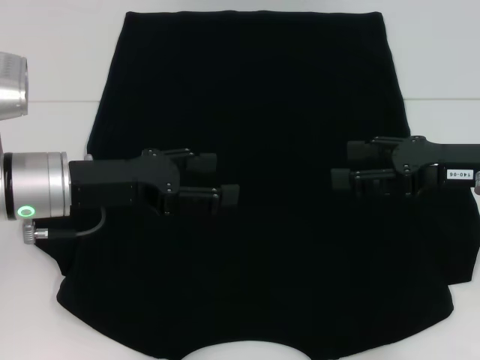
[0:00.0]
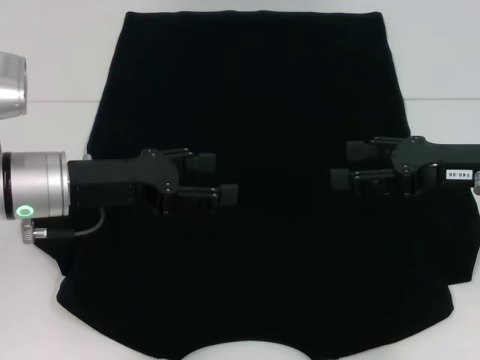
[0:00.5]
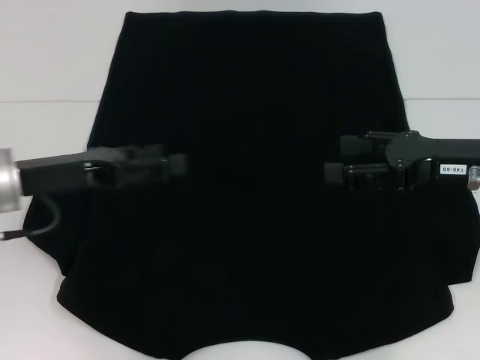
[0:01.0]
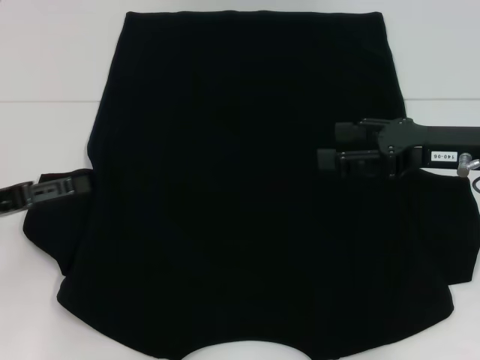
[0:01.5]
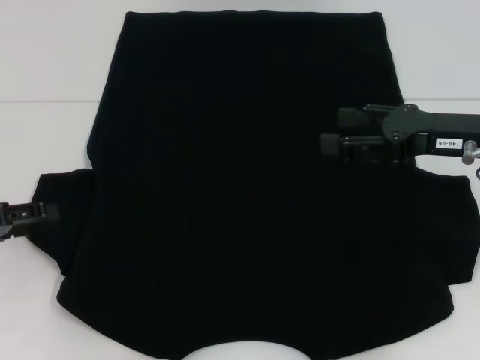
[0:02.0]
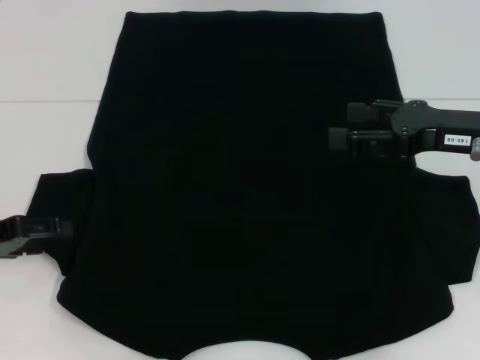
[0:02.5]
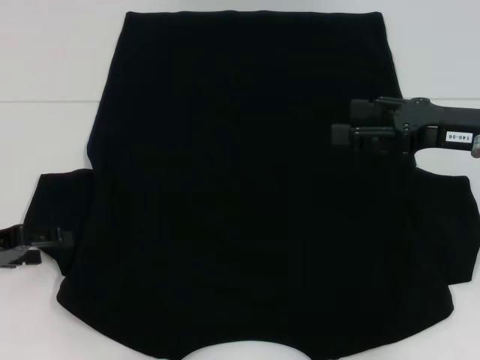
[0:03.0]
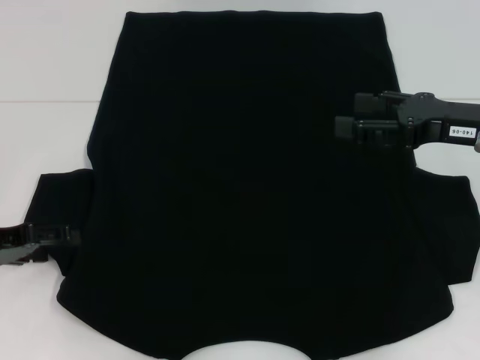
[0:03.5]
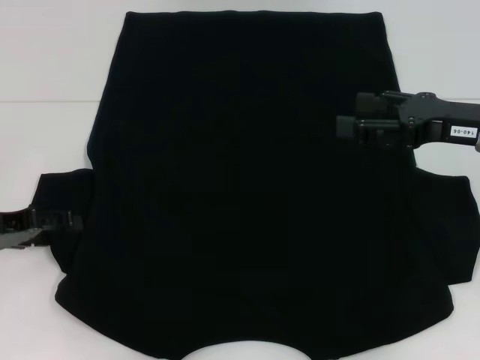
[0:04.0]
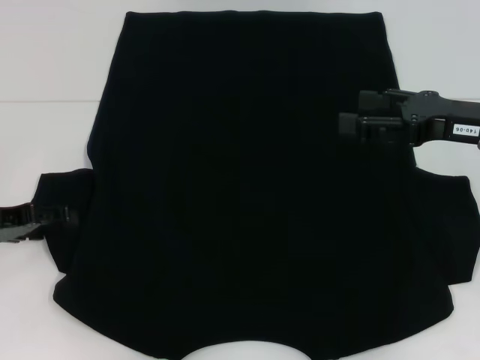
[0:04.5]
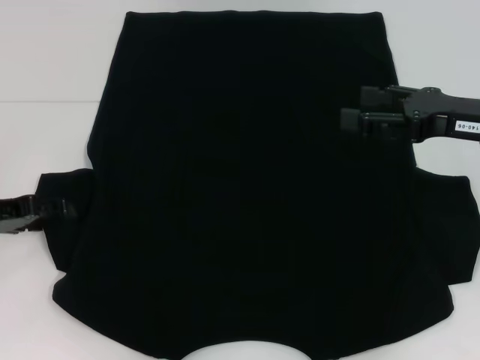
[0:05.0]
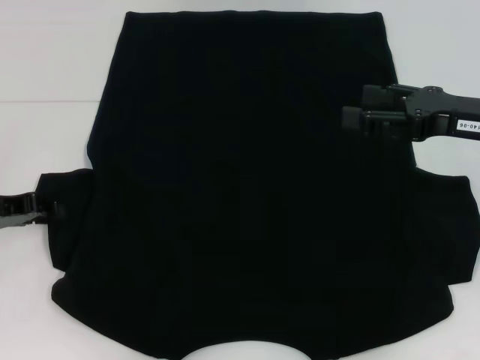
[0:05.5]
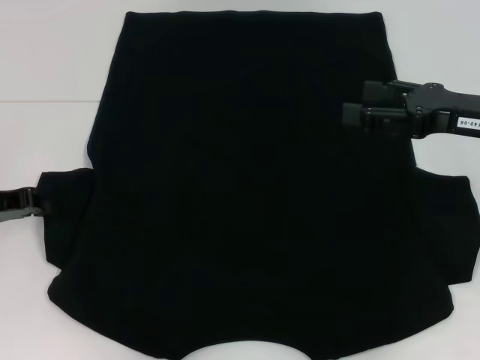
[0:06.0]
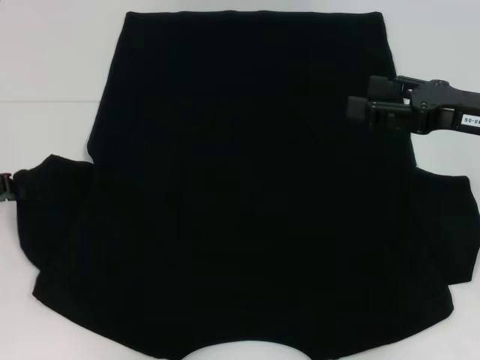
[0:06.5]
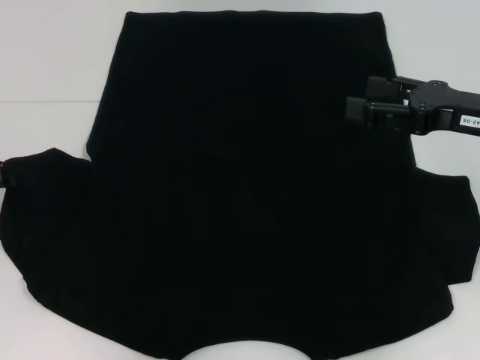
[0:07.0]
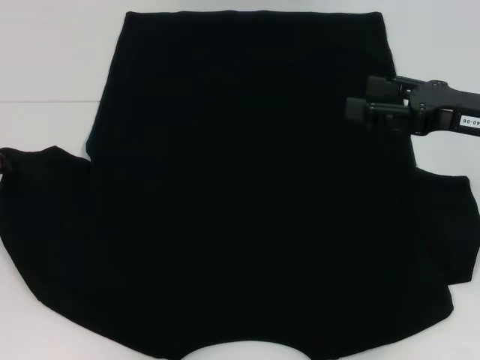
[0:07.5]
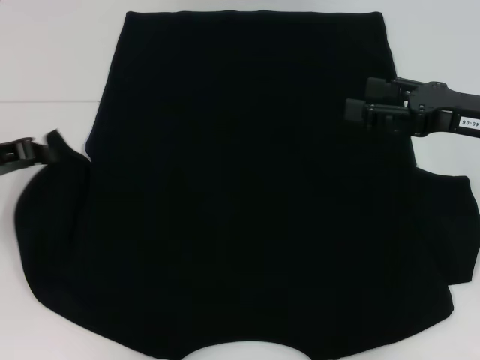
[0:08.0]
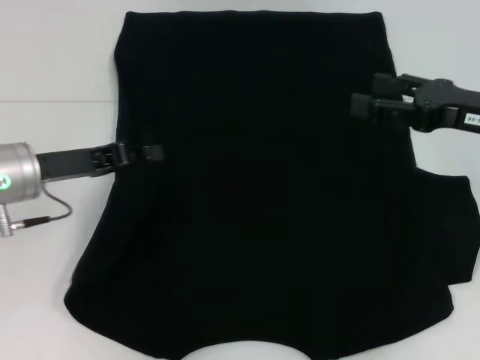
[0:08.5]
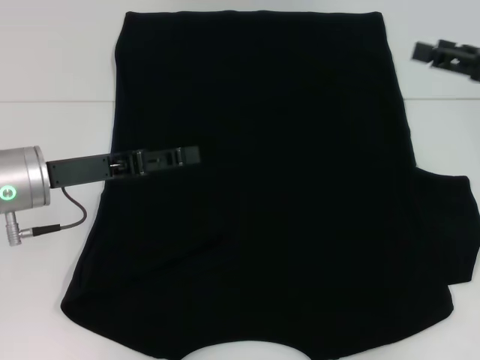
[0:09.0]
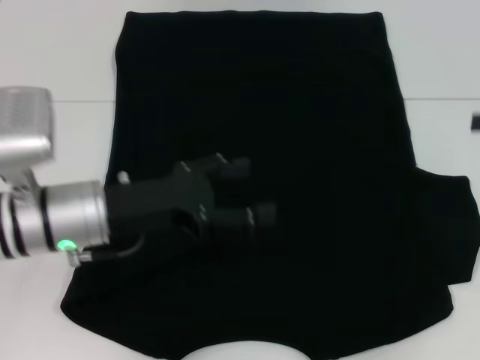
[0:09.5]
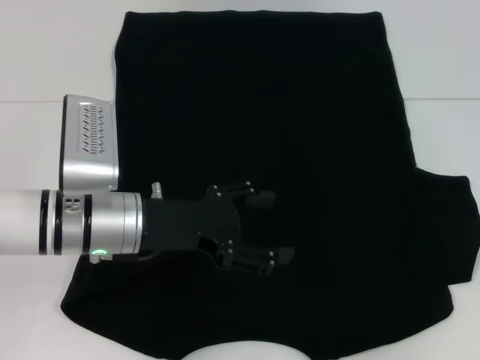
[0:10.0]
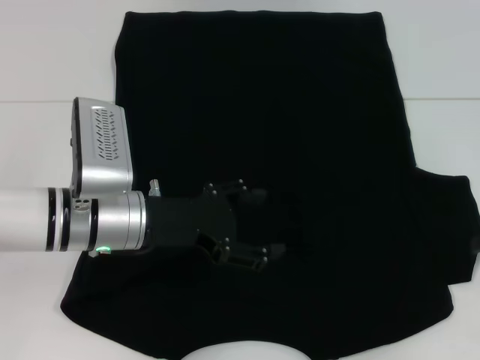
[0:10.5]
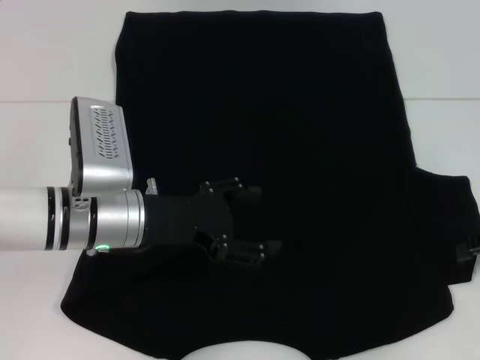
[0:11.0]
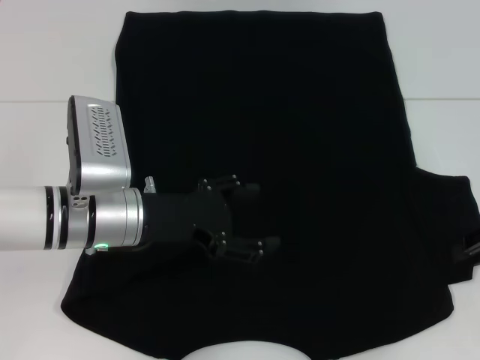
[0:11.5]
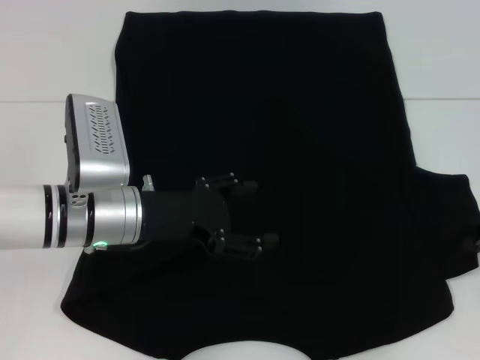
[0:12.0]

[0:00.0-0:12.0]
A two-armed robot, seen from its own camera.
Step, 0:00.0 to 0:09.0: Fold the bottom left sleeve with your left hand.
0:00.0 to 0:02.0: The left gripper shifts roughly 15 cm to the left.
0:02.0 to 0:04.0: The grippers make only small movements.
0:04.0 to 0:06.0: The left gripper closes.
0:06.0 to 0:08.0: There are only small adjustments of the grippers.
0:08.0 to 0:10.0: The two grippers go approximately 15 cm to the right. The left gripper opens.

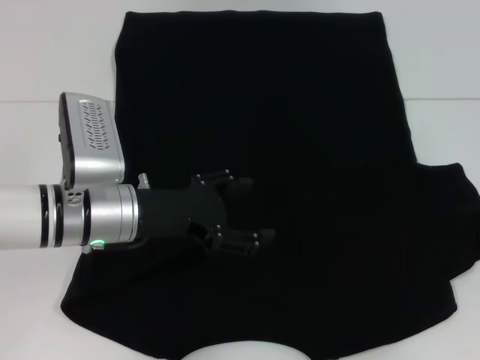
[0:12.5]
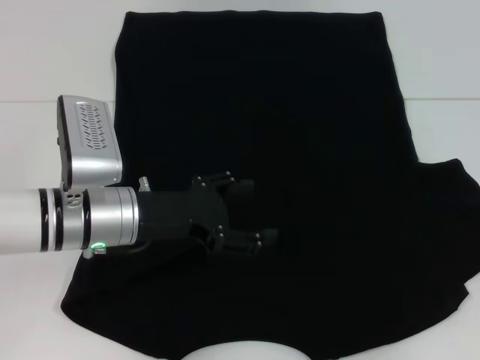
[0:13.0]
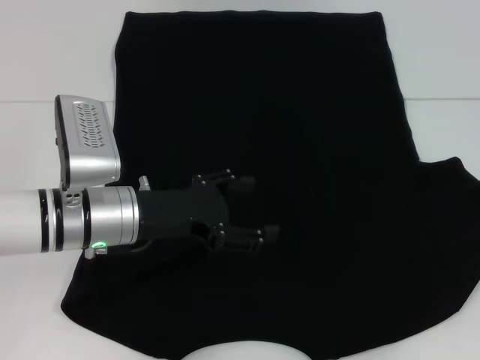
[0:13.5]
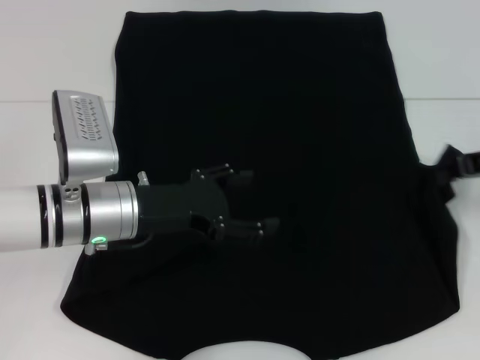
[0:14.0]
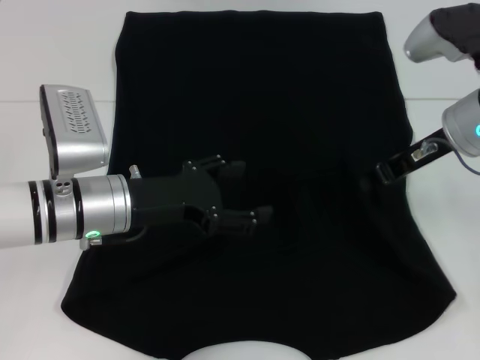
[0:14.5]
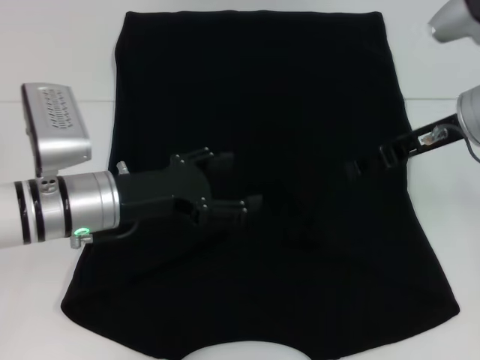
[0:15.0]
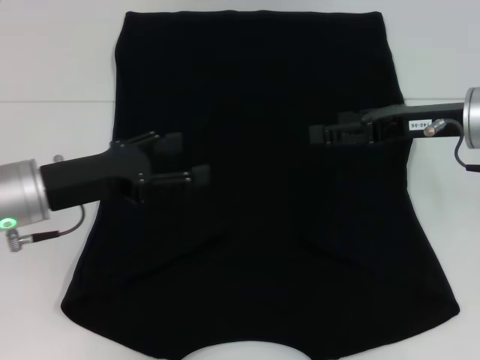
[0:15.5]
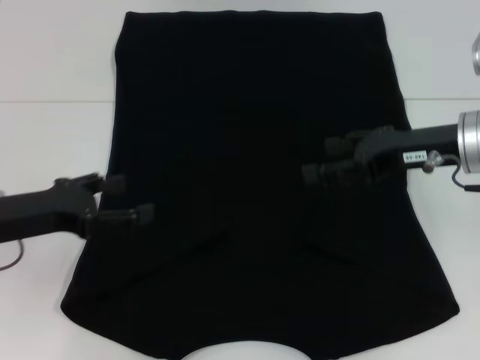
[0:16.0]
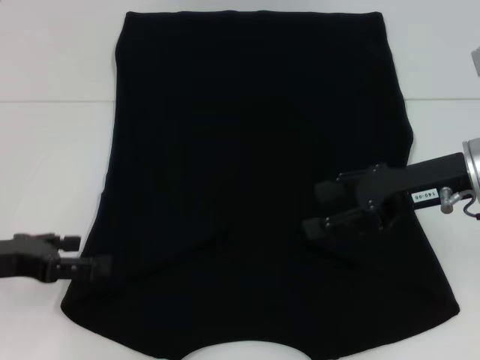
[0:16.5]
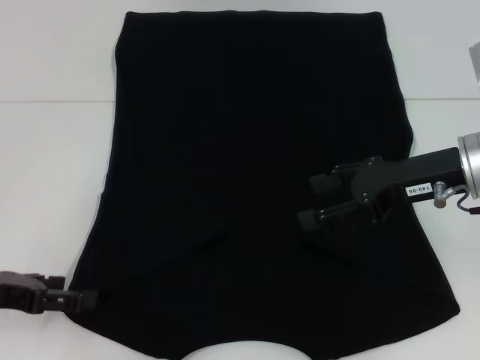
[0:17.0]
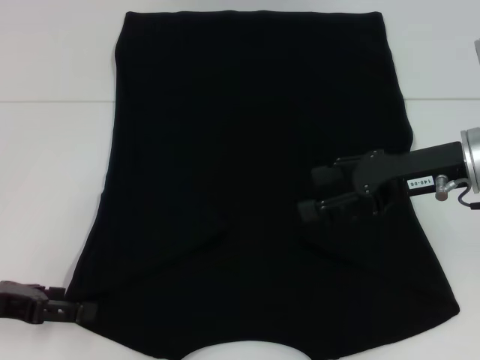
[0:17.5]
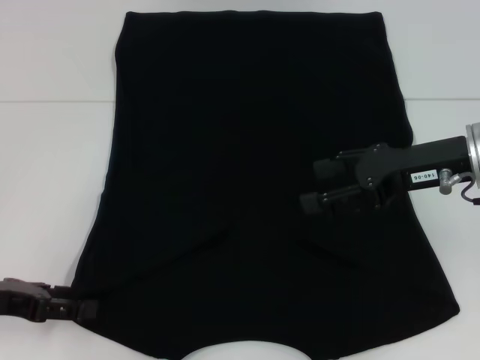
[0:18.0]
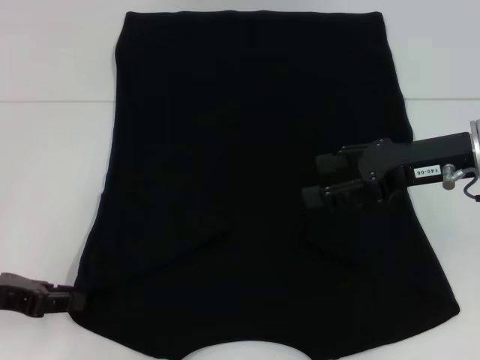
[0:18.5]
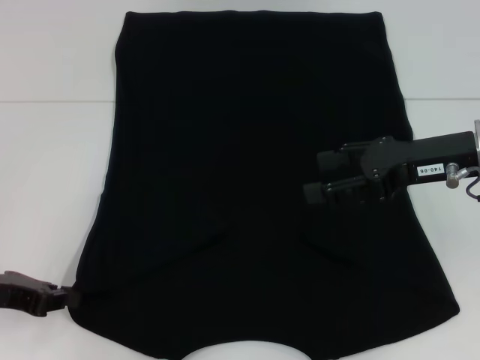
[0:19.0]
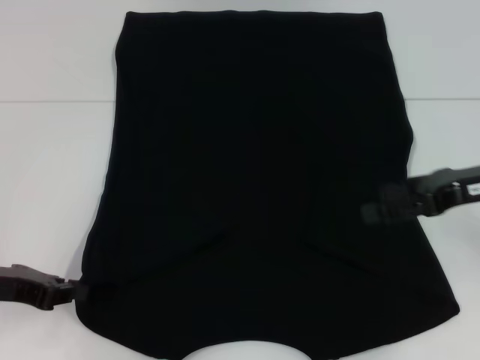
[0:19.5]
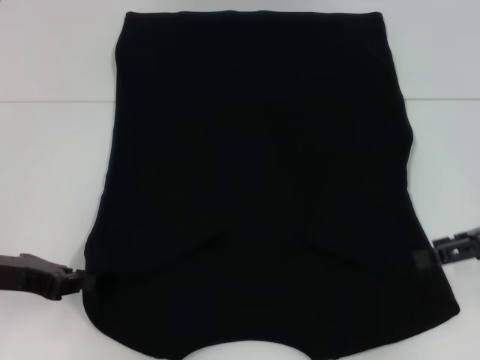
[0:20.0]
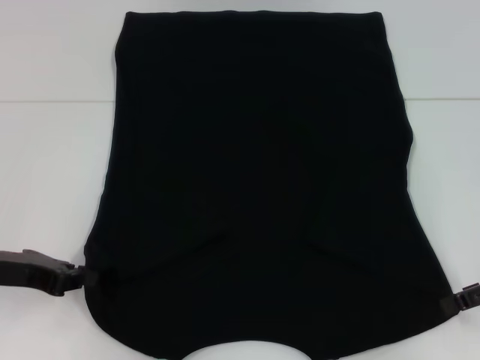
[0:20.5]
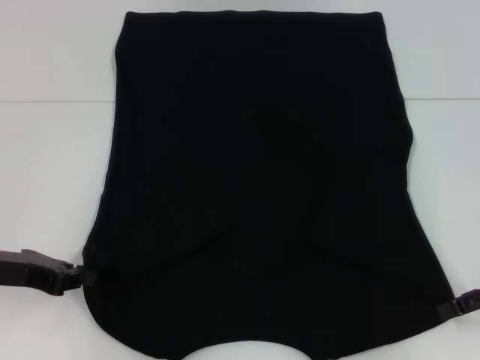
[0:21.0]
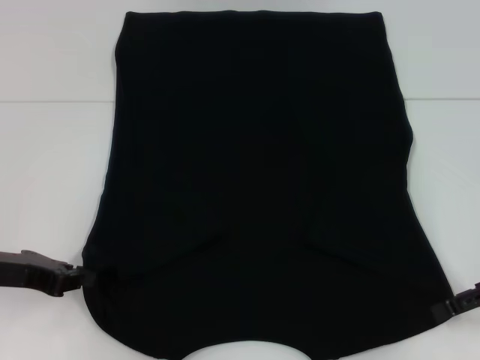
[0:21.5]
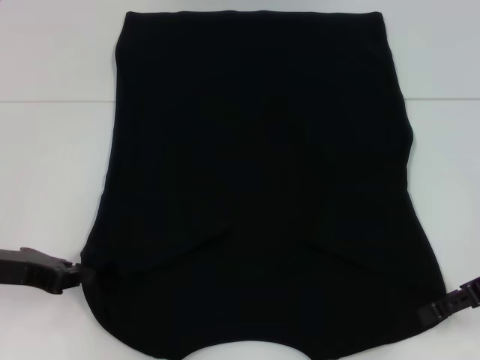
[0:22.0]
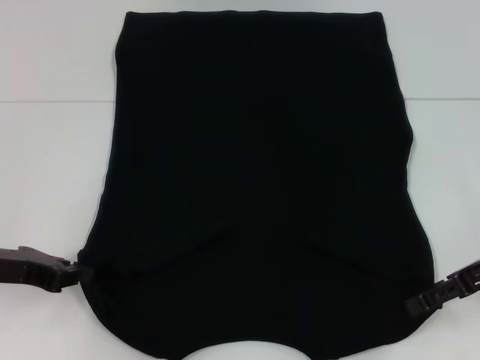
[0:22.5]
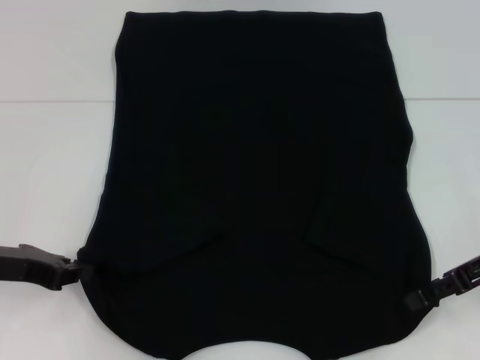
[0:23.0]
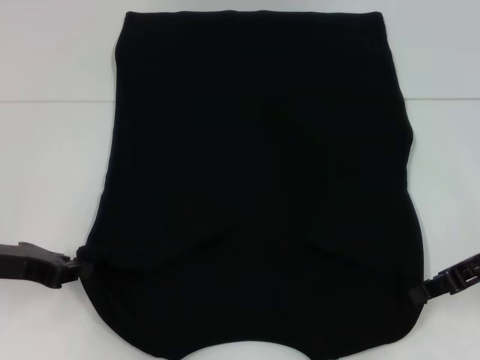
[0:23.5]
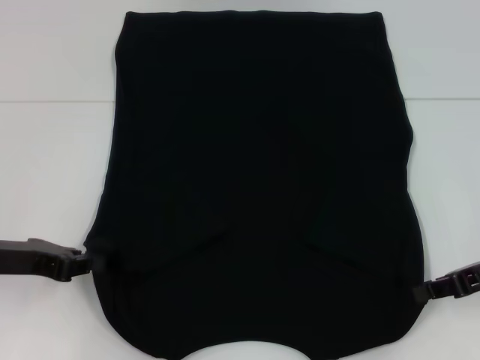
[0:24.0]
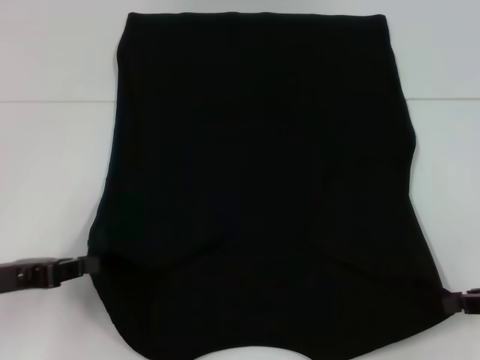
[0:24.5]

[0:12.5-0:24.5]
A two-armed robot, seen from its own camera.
Step, 0:12.5 to 0:15.0: Fold the bottom right sleeve with your right hand.
Step, 0:15.5 to 0:23.5: Grab the bottom left corner with your left hand.
Step, 0:15.5 to 0:23.5: Grab the bottom right corner with your right hand.
0:12.5 to 0:14.5: The right gripper is displaced to the left by about 15 cm.
0:14.5 to 0:16.5: The right gripper heads backward, covering approximately 5 cm, and opens. The left gripper is displaced to the left and backward by roughly 15 cm.
0:16.5 to 0:18.5: The left gripper closes its fingers.
0:18.5 to 0:20.5: The right gripper travels to the right by some 10 cm. The left gripper closes.
0:20.5 to 0:22.5: There are only small adjustments of the grippers.
0:22.5 to 0:24.5: The right gripper is displaced backward and to the right by roughly 5 cm, and closes up.

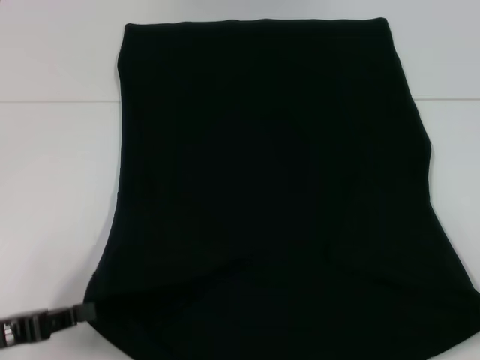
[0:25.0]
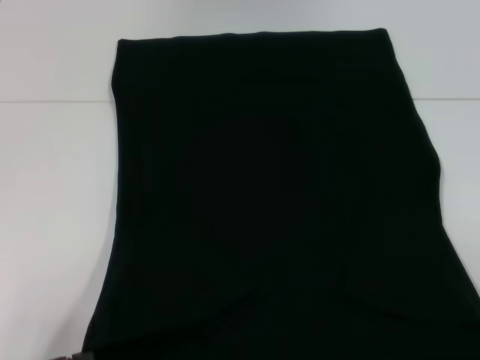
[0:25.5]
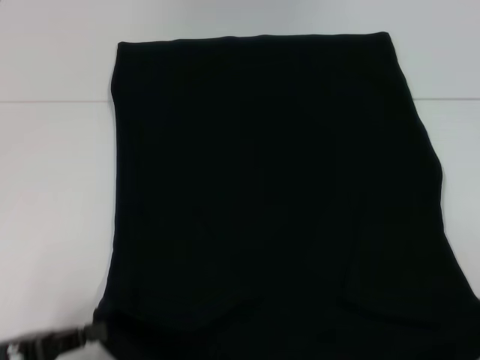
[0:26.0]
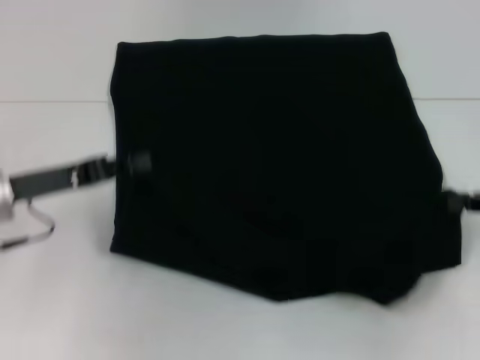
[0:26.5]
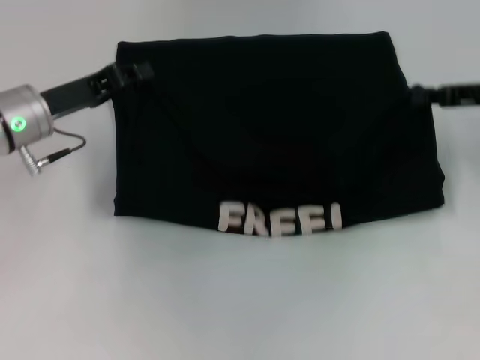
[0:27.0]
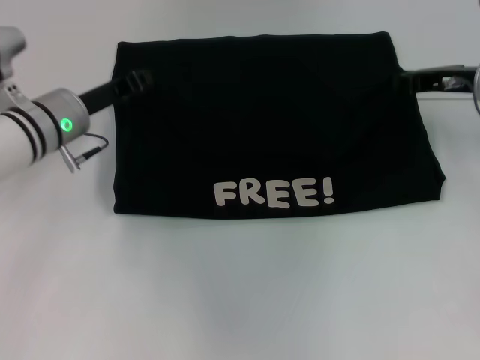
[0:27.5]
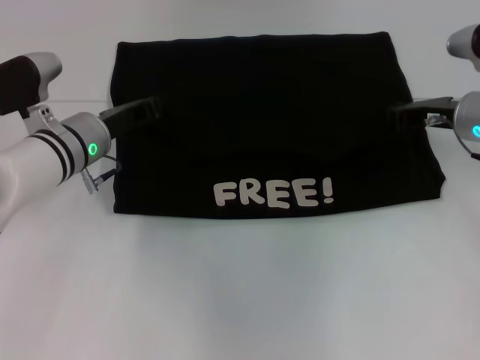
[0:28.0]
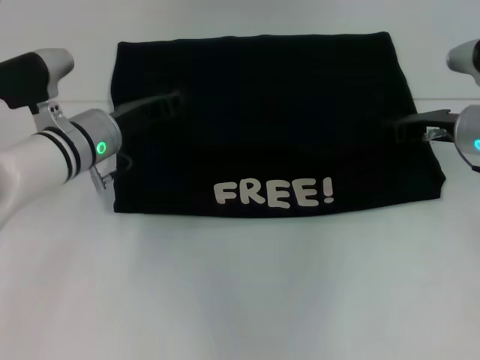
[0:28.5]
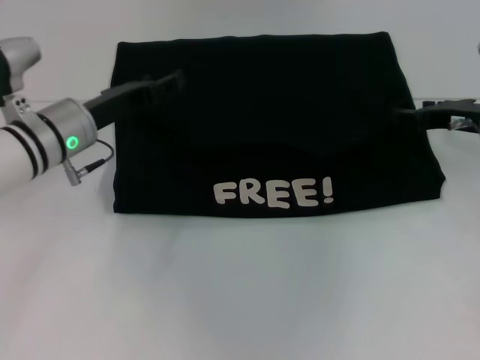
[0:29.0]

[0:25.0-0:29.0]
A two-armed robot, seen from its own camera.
0:25.0 to 0:27.0: The left gripper travels forward by about 20 cm. Meanwhile the right gripper travels forward, upward and to the left by some 20 cm.
0:27.0 to 0:29.0: The left gripper opens its fingers; the right gripper shifts approximately 5 cm downward, and opens.
